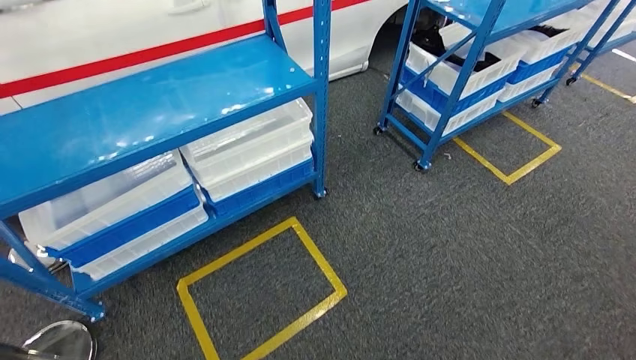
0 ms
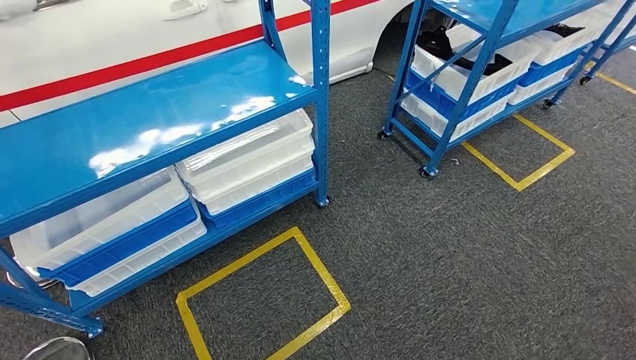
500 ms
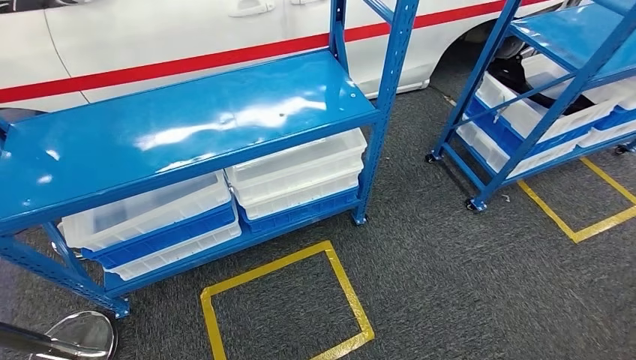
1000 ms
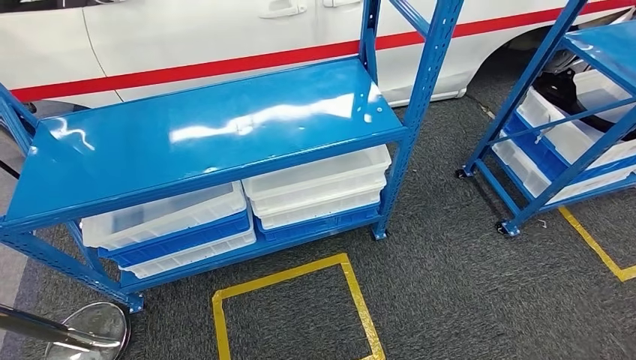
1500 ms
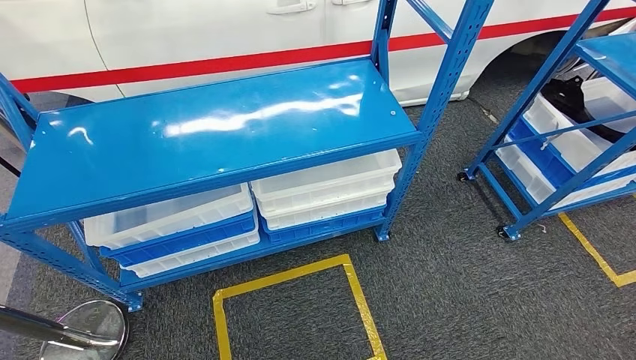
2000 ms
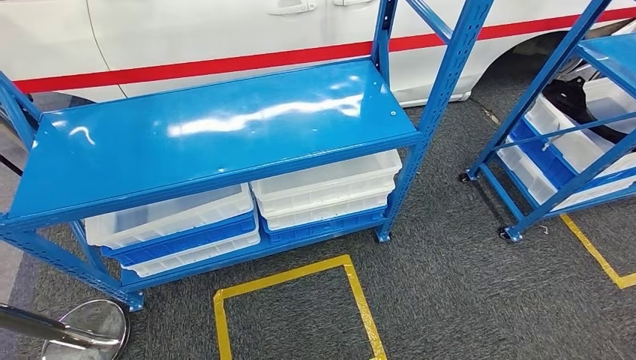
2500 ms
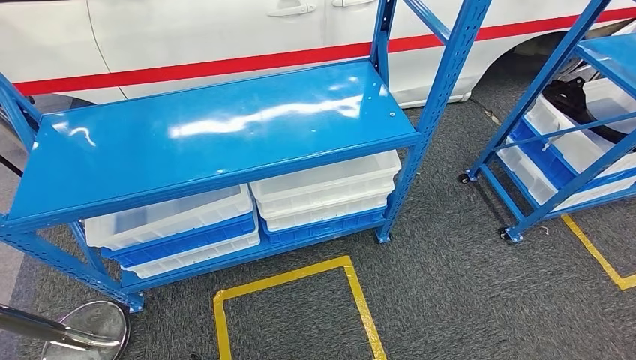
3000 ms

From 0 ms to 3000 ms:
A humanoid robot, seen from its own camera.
Step, from 0 ms to 3000 ms: Return to the initial position at the shelf.
